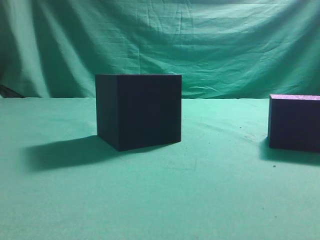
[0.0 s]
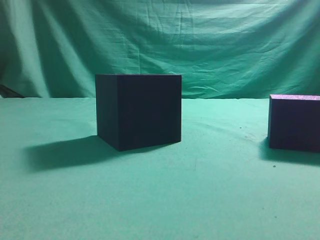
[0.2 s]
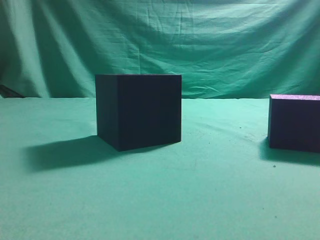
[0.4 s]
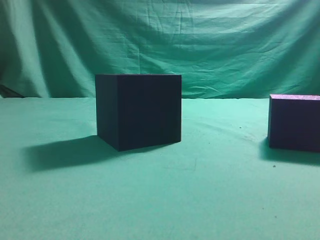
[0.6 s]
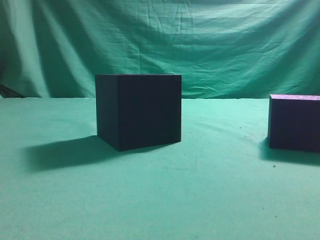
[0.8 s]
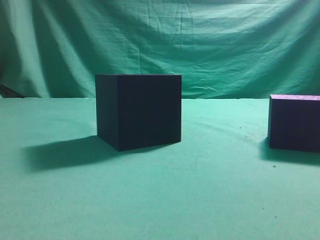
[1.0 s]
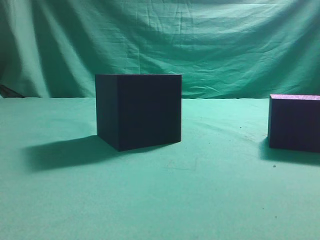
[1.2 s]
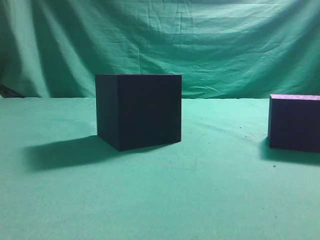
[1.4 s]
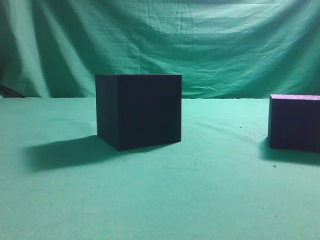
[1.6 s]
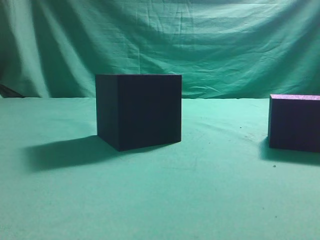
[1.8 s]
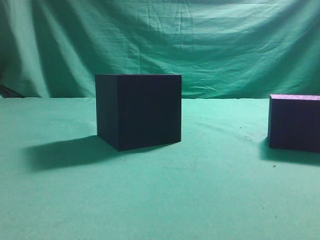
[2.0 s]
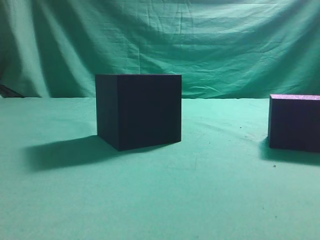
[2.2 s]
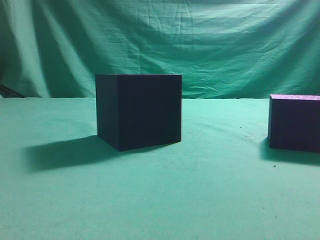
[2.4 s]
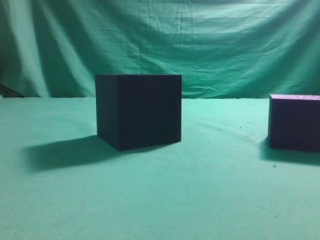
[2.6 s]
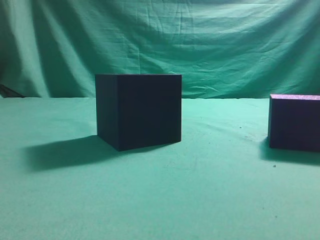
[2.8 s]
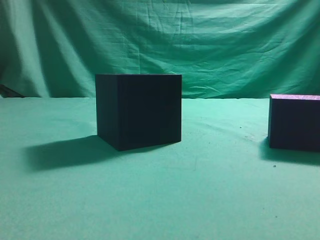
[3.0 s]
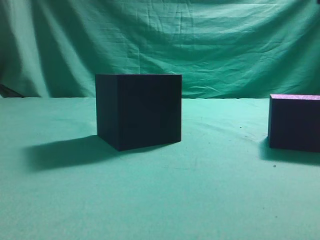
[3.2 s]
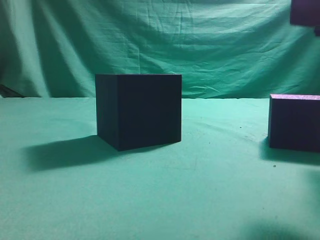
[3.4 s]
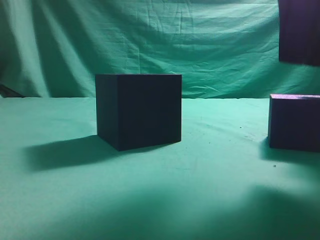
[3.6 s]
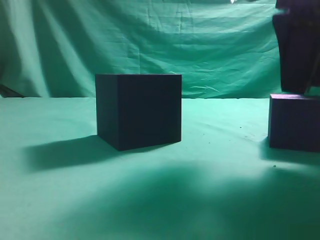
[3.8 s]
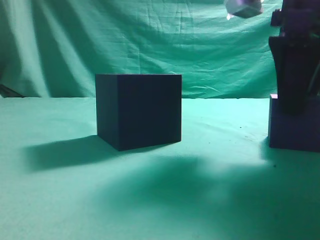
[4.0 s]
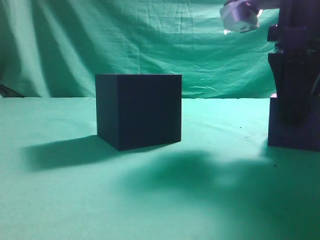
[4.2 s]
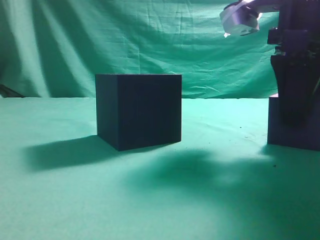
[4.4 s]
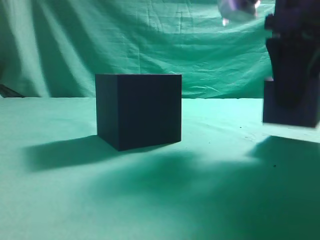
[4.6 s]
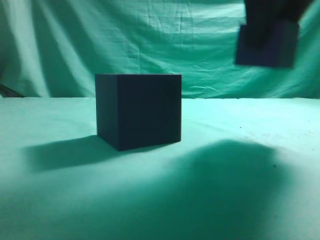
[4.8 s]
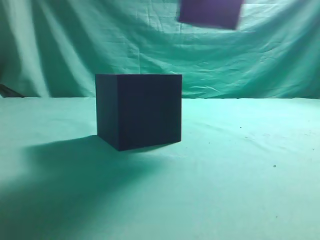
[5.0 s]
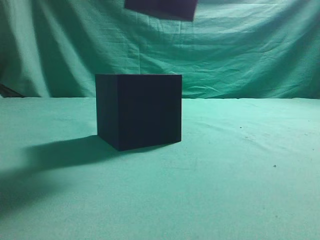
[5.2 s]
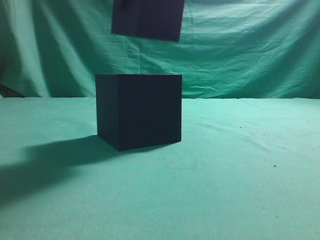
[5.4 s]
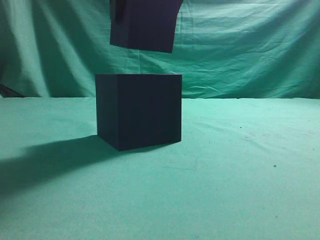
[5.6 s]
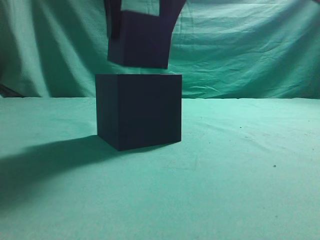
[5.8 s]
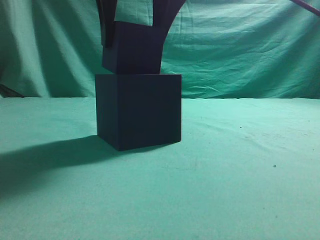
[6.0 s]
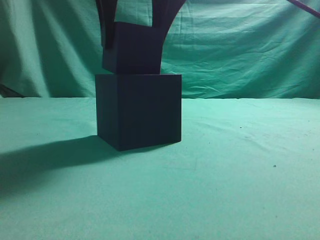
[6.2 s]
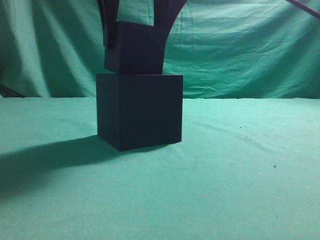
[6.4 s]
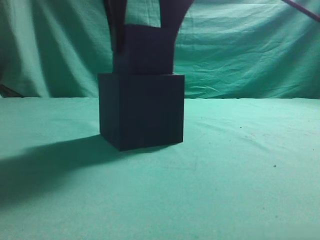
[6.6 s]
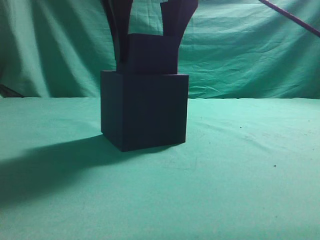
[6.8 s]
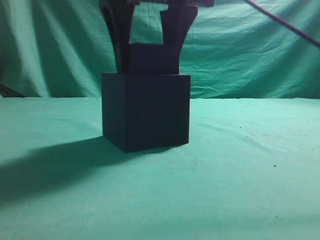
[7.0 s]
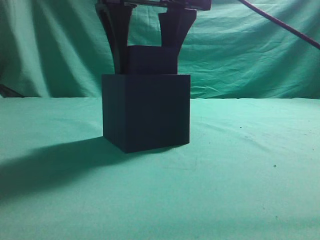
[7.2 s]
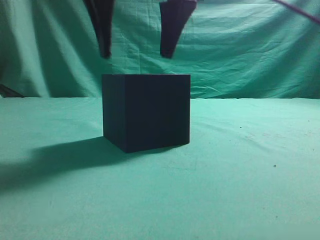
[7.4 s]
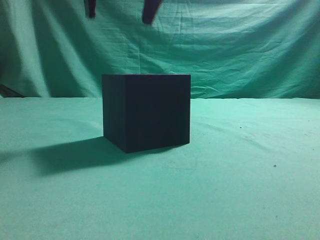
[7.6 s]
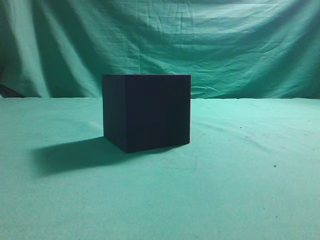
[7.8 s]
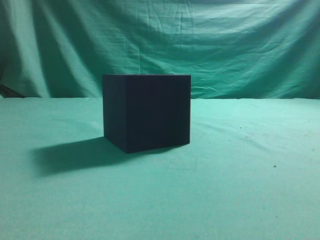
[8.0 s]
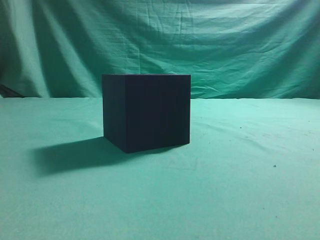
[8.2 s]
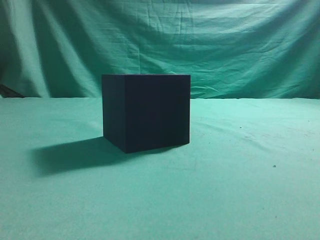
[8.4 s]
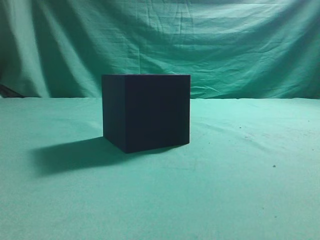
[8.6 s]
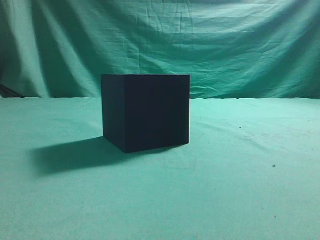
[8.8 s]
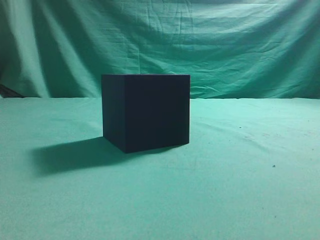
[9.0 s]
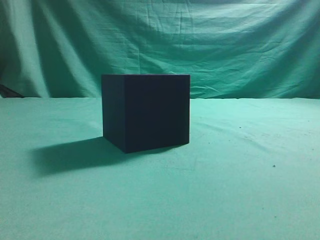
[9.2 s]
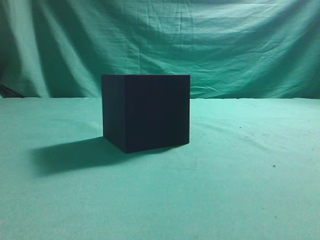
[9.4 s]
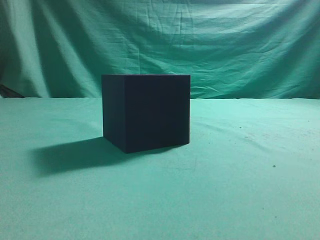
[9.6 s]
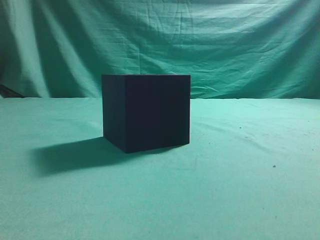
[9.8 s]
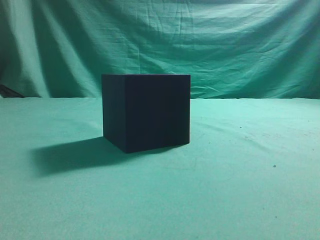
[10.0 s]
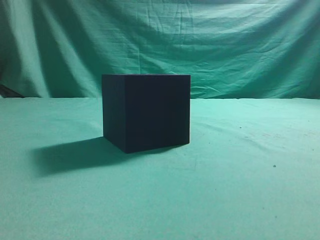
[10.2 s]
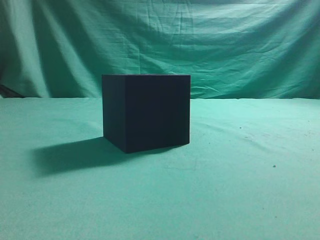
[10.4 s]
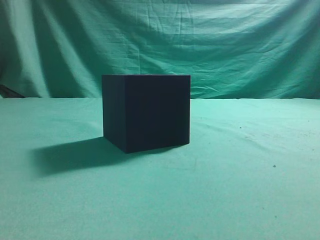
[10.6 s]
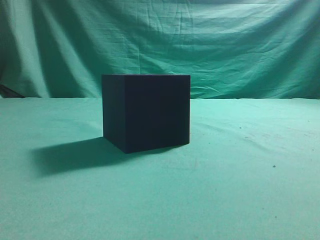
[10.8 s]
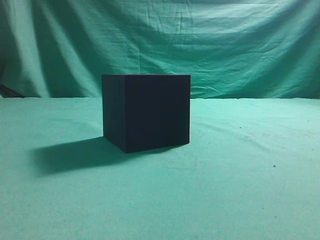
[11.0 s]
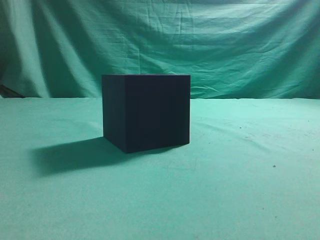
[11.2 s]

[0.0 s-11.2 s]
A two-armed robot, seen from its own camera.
Task of the whole recording: pick up the cube block and place it into the cube groove.
Step, 0.0 to 4.8 s: Grasp the cube.
Step, 5.0 to 7.4 s: Place cube into the cube-shaped recess.
1.6 to 3.2 s: The right gripper is displaced forward, to the left and upward by about 20 cm, and opens up.
3.2 to 4.8 s: The right gripper travels forward by about 10 cm, and reaches approximately 10 cm downward, then returns.
4.8 to 6.4 s: The right gripper goes some 15 cm to the left.
6.4 to 8.0 s: The right gripper moves upward, about 15 cm, and closes its fingers.
